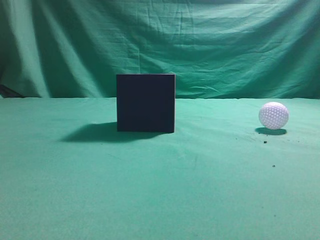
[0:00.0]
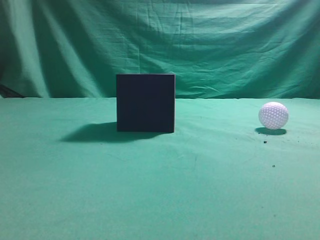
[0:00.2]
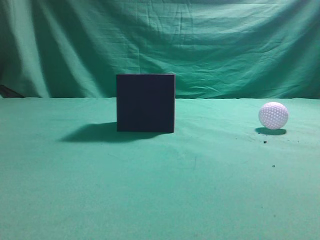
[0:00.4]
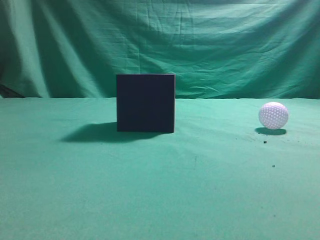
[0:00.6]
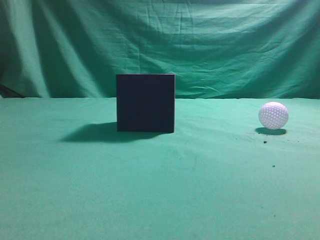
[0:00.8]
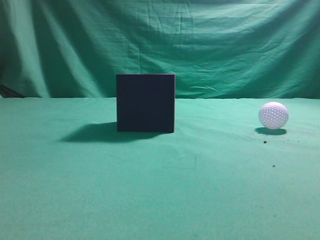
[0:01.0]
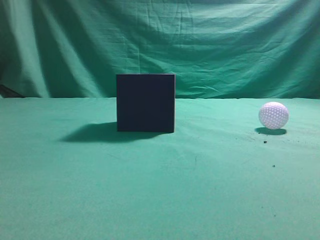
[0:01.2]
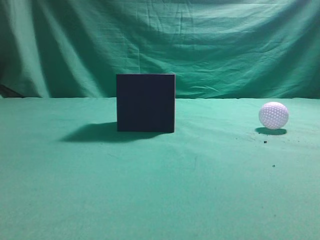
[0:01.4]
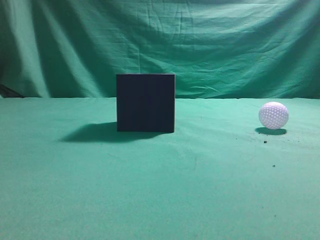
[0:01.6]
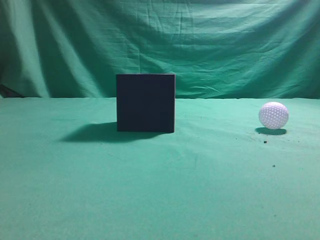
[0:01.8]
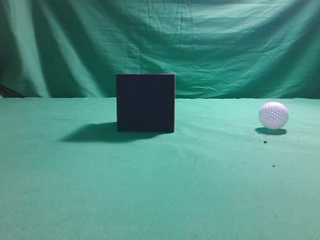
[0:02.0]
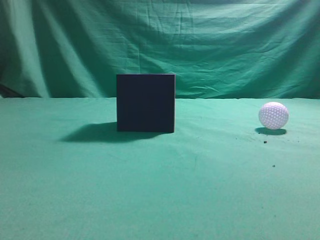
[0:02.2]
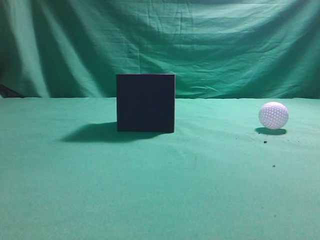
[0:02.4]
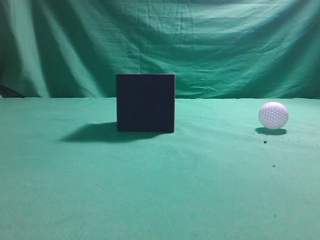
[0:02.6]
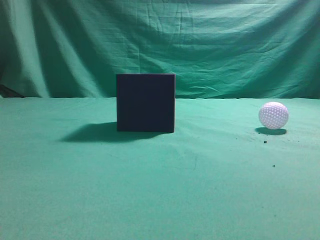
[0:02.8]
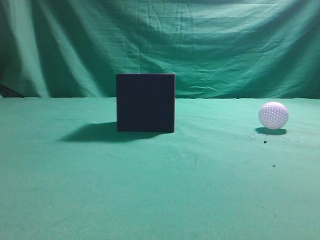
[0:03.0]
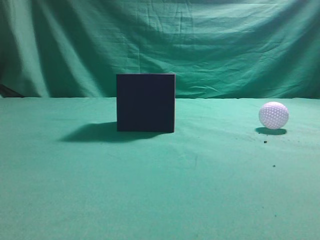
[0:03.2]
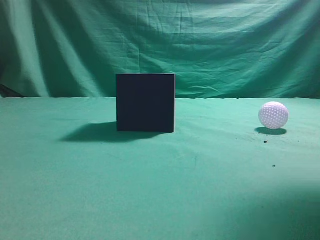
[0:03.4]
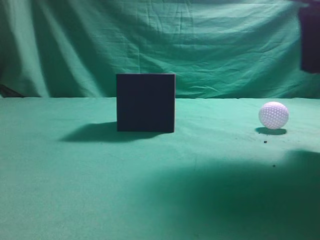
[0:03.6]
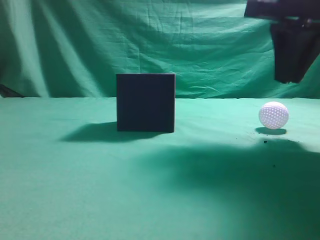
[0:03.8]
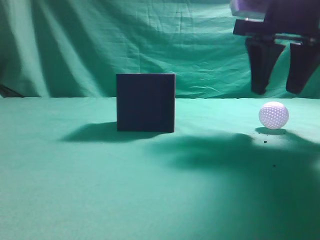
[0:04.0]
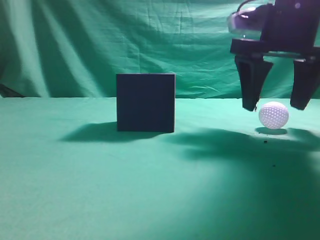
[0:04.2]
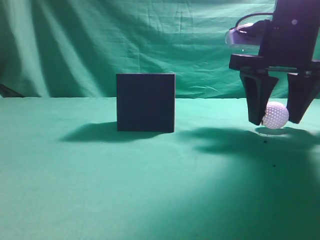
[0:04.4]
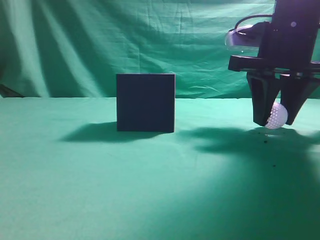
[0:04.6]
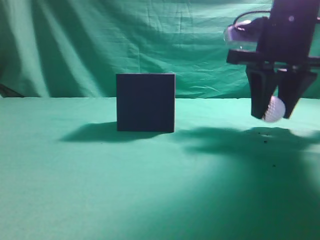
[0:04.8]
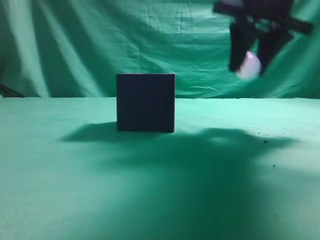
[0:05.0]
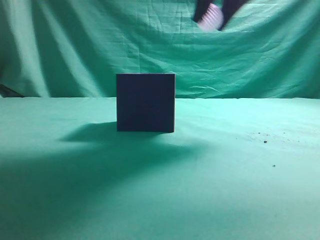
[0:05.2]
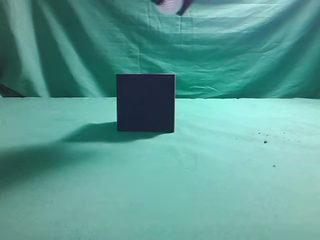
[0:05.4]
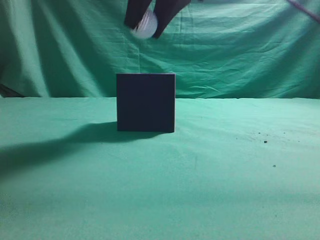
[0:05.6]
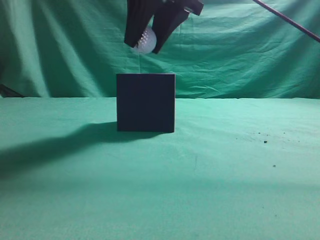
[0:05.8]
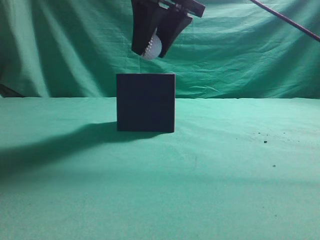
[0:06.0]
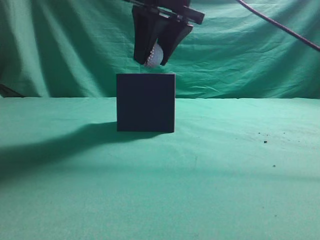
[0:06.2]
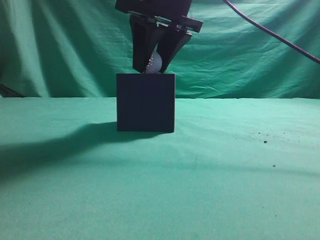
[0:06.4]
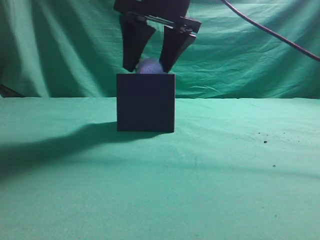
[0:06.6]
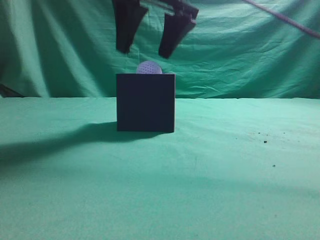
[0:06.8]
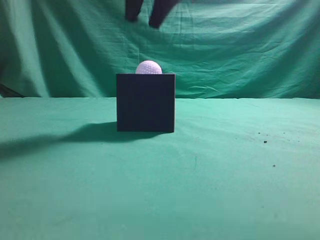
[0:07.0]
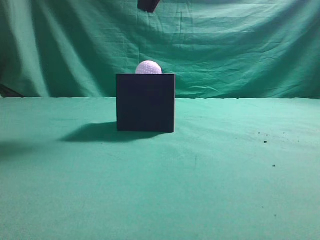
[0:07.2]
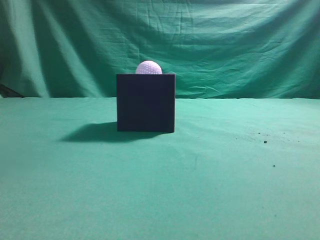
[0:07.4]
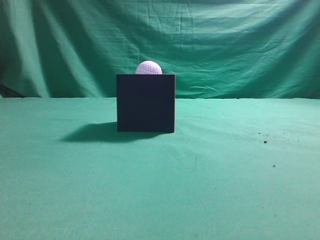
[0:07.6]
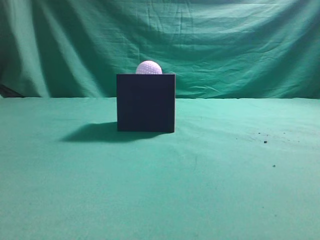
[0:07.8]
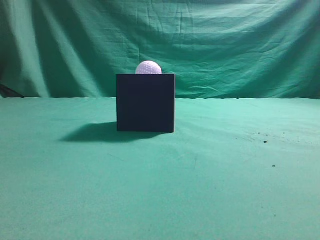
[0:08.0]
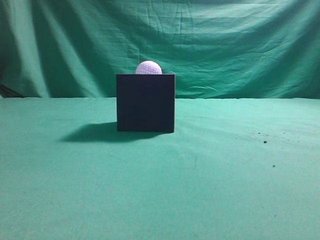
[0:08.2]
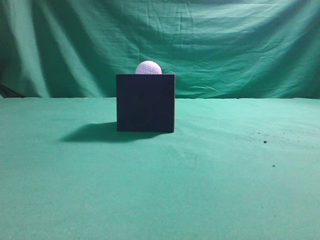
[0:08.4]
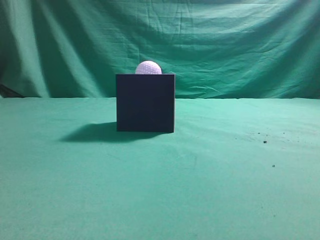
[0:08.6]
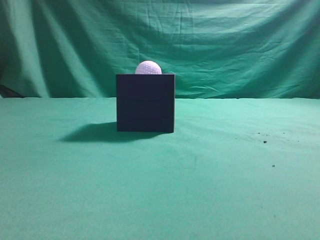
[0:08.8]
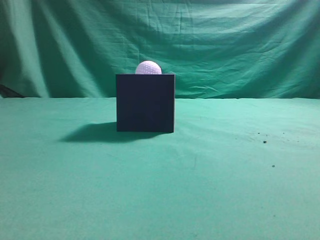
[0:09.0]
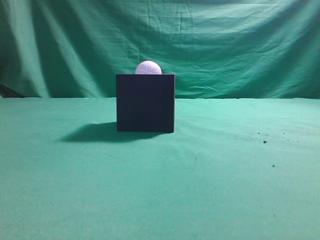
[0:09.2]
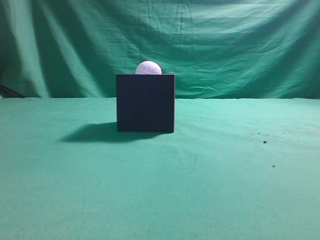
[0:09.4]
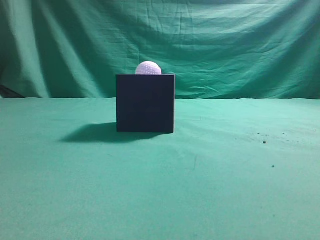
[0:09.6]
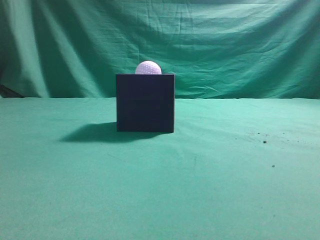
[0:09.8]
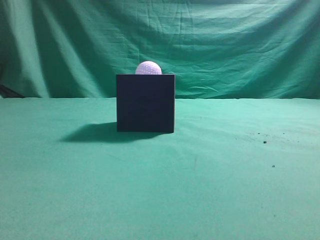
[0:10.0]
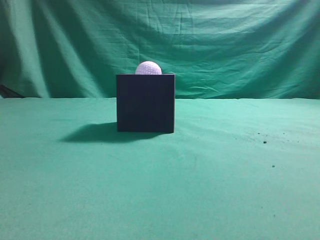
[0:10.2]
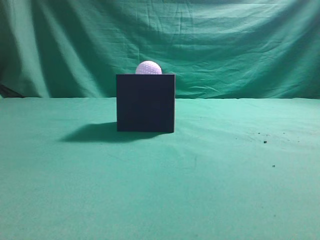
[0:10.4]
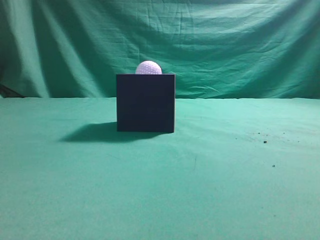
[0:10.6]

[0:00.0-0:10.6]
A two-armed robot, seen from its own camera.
Task of the whole recording: Pick up the ball and place it in the circular groove above the cube.
Step, 0:00.0 to 0:04.8: Grasp the sphere on the table.
Step, 0:05.0 to 0:06.8: Place the sphere into the sphere-shaped recess.
0:03.0 to 0:04.6: The right gripper is displaced forward, downward and to the left by about 20 cm, and opens.
0:04.6 to 0:06.0: The right gripper moves to the left and upward, some 15 cm.
0:06.0 to 0:07.6: The right gripper travels upward by roughly 15 cm, and closes its fingers.
